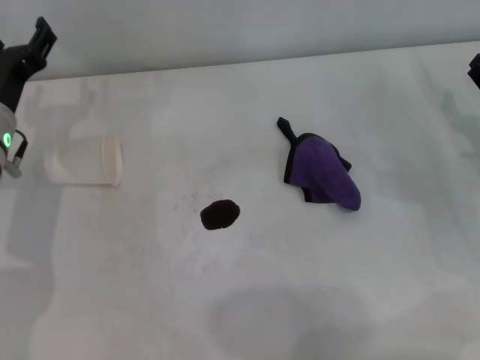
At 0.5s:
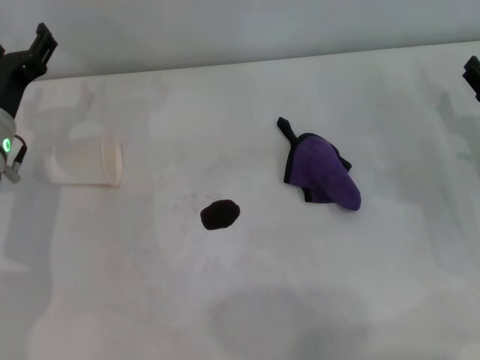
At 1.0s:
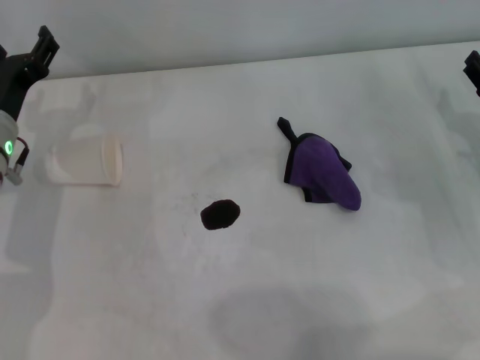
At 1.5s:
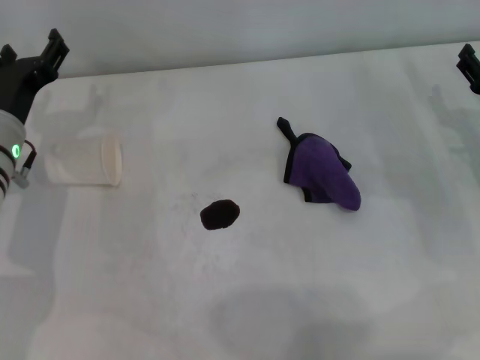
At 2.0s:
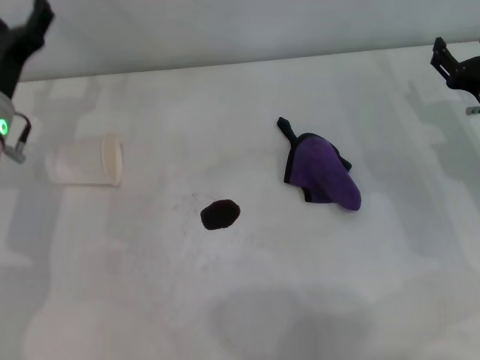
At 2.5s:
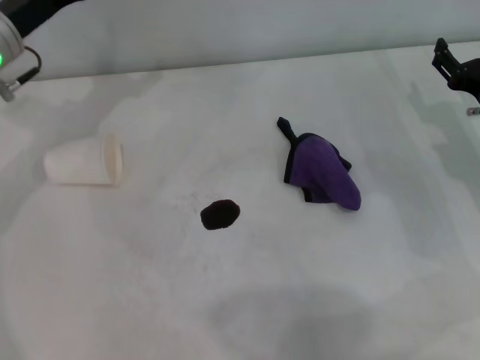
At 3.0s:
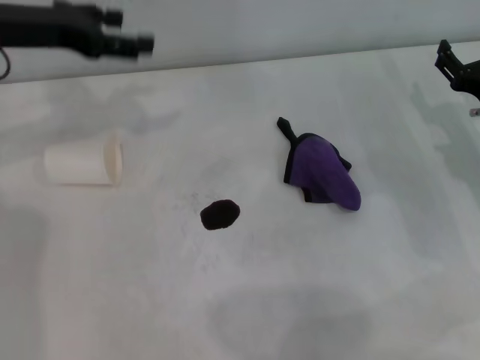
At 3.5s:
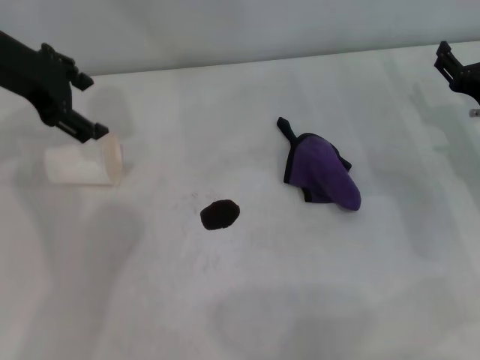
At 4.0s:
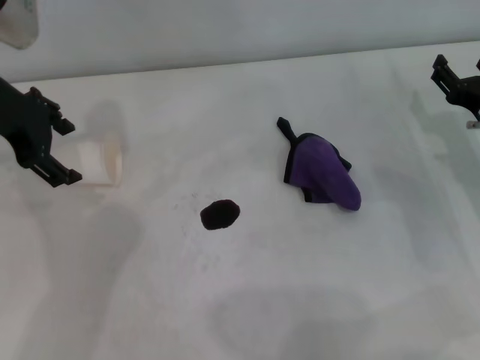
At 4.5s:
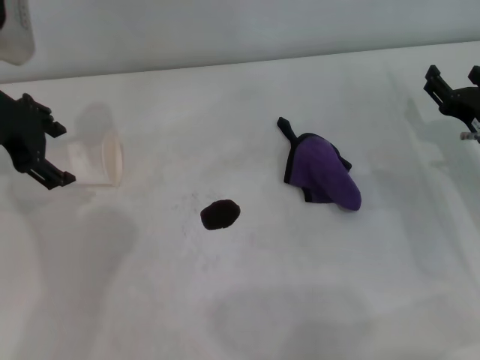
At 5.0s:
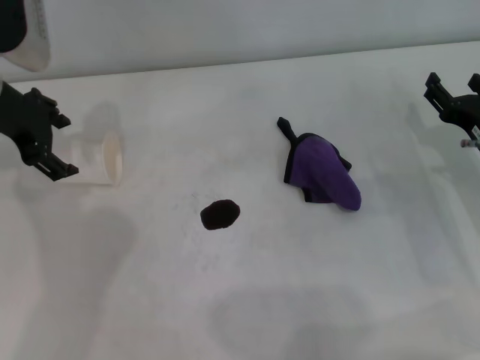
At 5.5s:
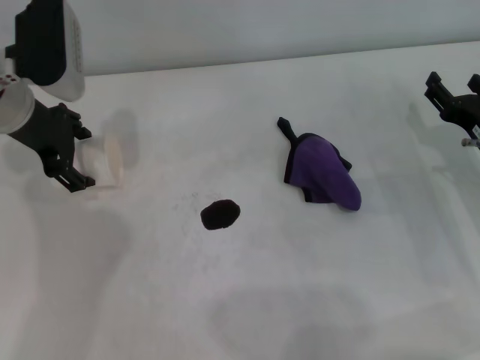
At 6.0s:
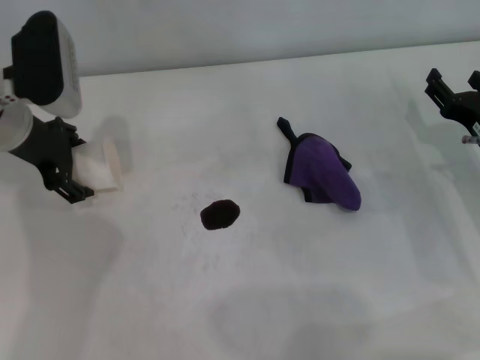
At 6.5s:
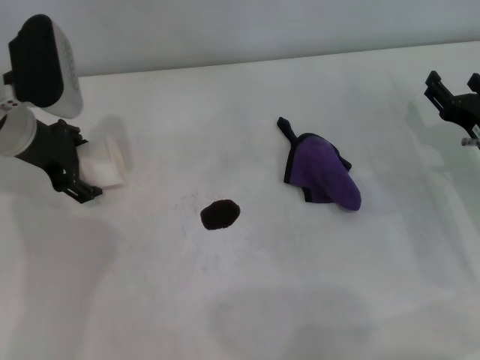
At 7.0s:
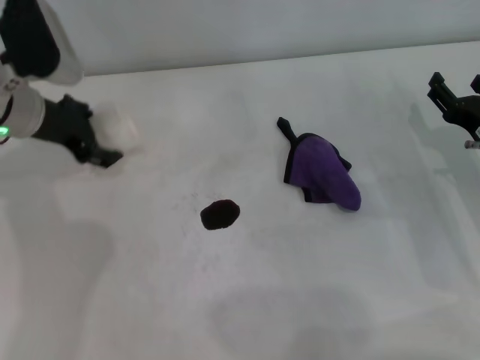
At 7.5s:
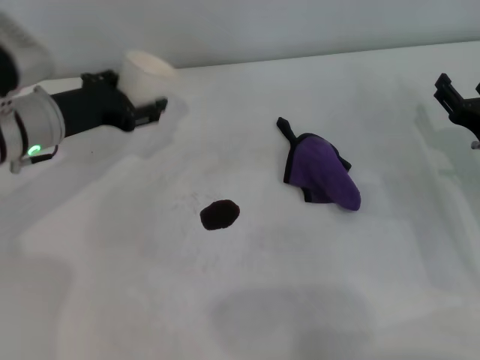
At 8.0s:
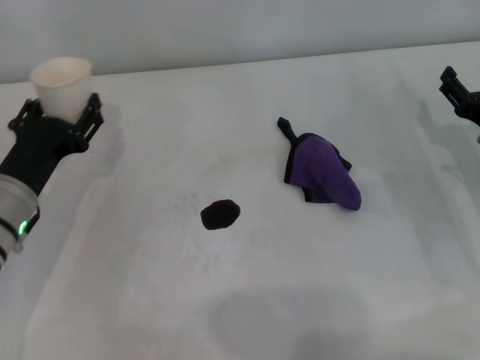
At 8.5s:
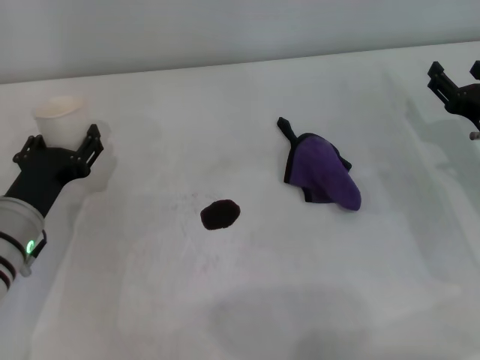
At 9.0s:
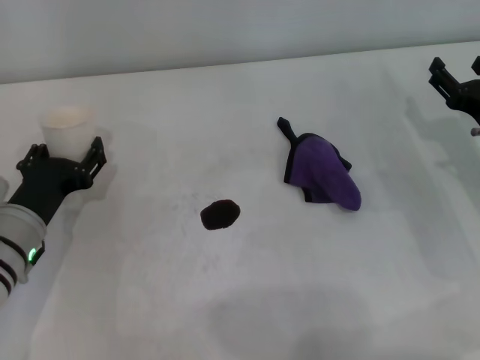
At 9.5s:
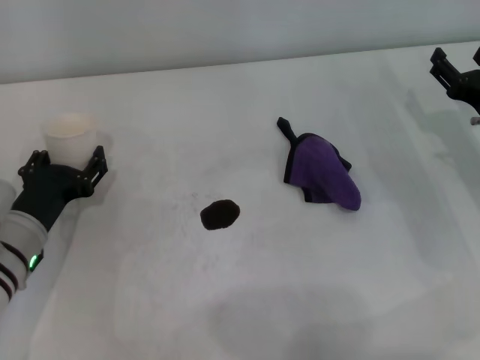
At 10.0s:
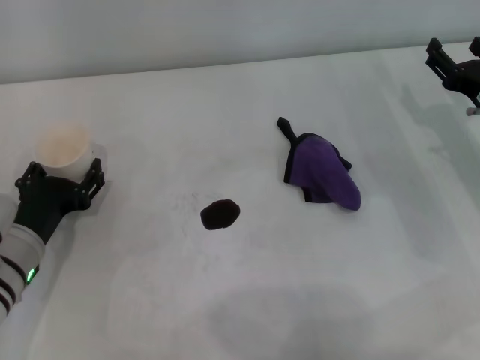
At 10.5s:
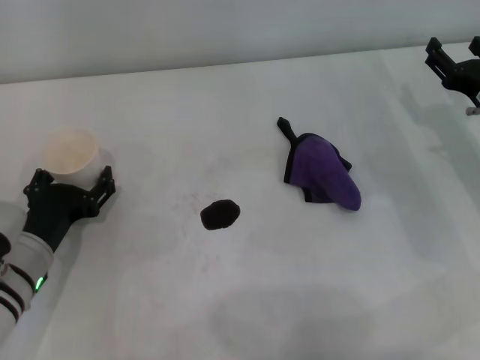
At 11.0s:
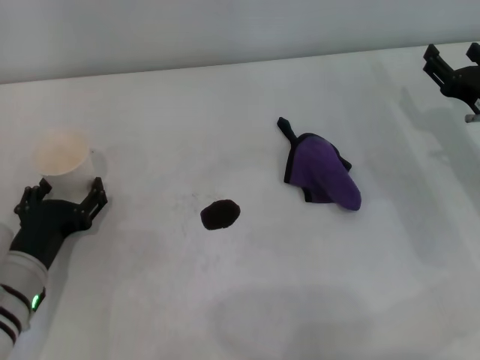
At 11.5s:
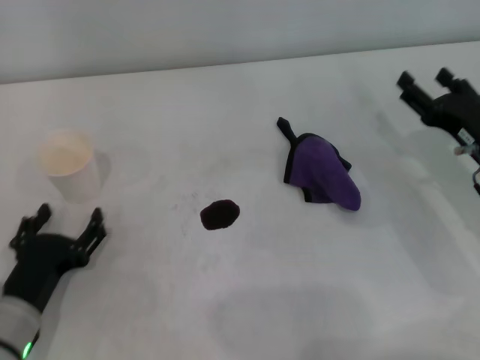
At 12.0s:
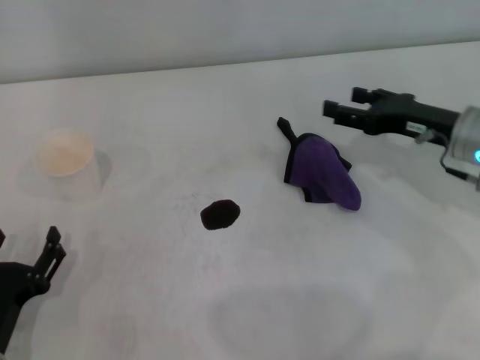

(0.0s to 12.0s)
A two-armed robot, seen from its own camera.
Step, 0.0s - 6.5s: Grasp the paper cup with the left gripper.
Step, 7.0s - 10.5s: Stand the paper cup upright with the left gripper.
2.0s - 4.0s: The left gripper travels upward by roughly 15 cm.
4.0s - 6.0s: The left gripper travels downward by approximately 10 cm.
6.0s - 8.0s: The left gripper is displaced backward and downward by about 15 cm, and closes up.
8.0s - 10.0s: The grippers stay close to where they were, moving slightly.
10.0s - 12.0s: The left gripper travels backward by some 10 cm, and opens; the right gripper ends up some 5 cm from where it was.

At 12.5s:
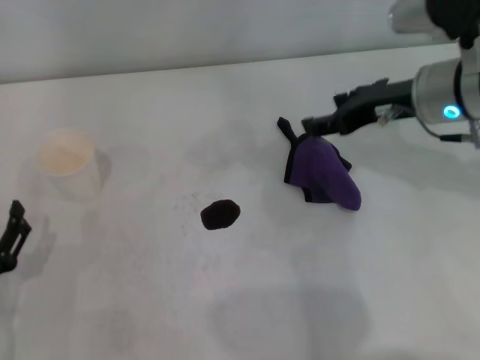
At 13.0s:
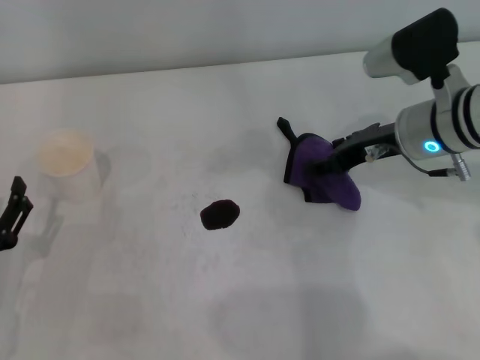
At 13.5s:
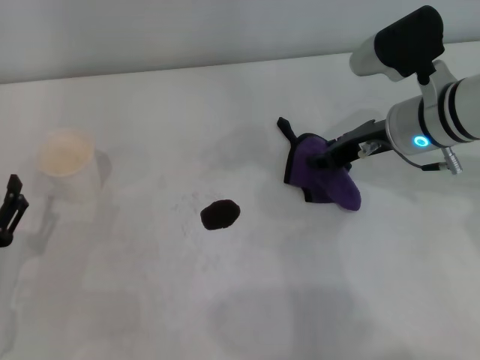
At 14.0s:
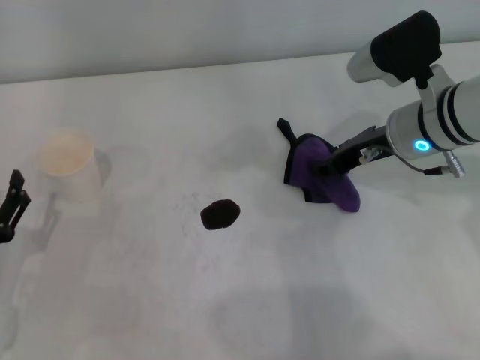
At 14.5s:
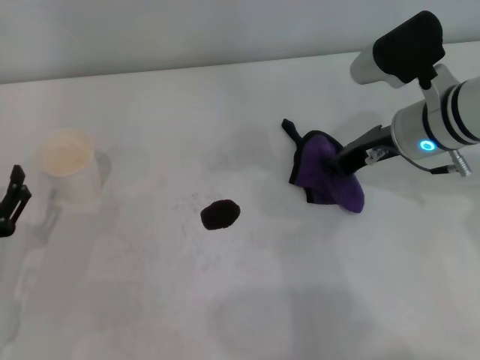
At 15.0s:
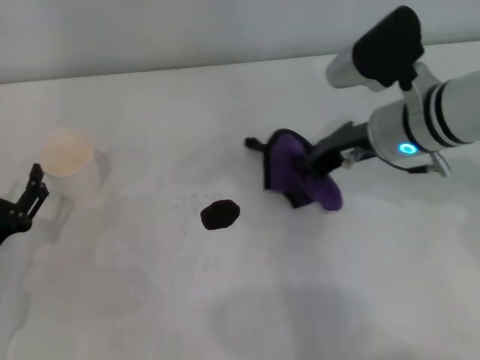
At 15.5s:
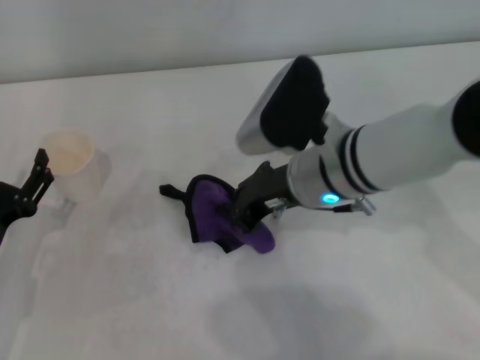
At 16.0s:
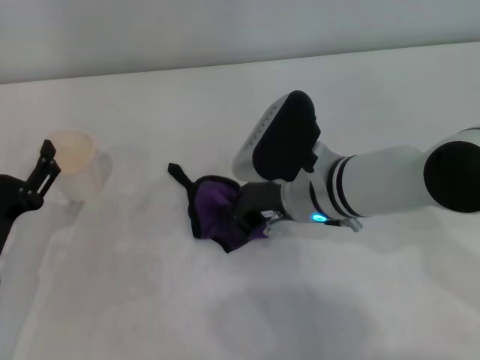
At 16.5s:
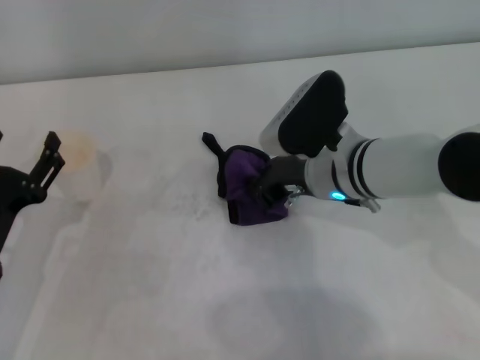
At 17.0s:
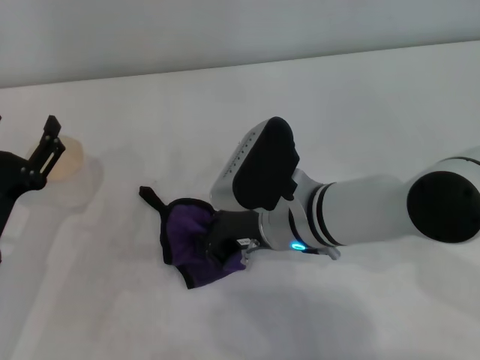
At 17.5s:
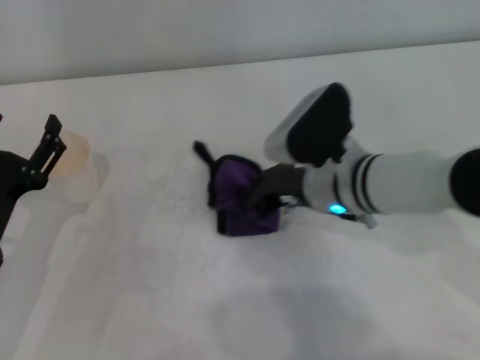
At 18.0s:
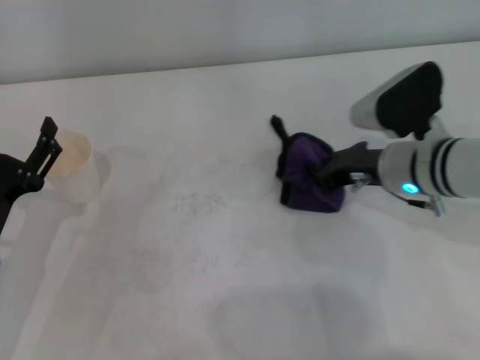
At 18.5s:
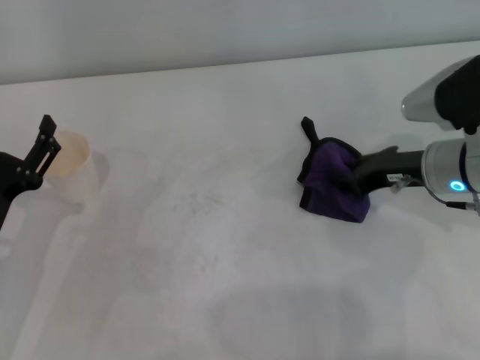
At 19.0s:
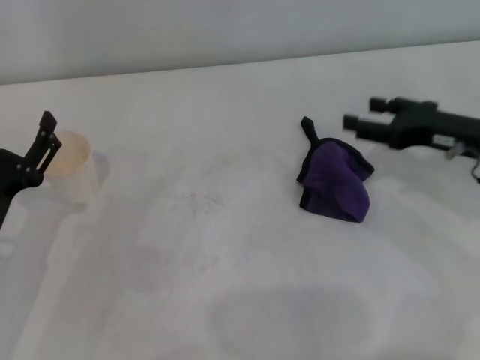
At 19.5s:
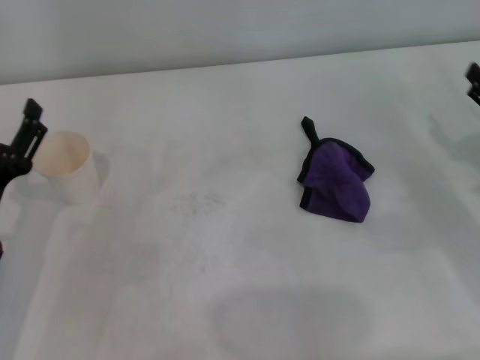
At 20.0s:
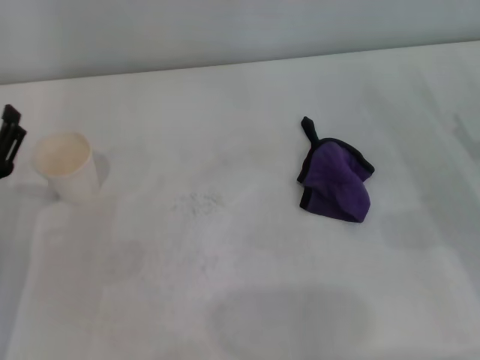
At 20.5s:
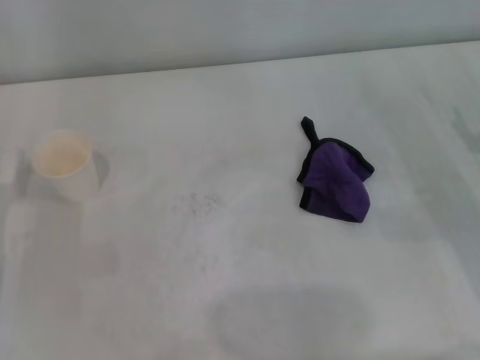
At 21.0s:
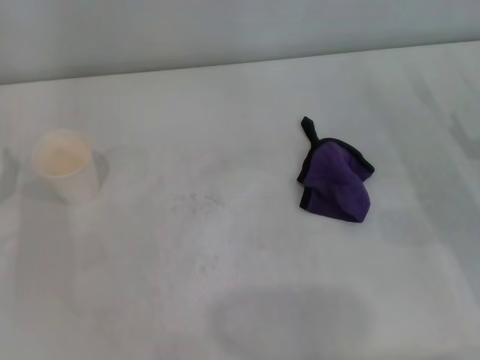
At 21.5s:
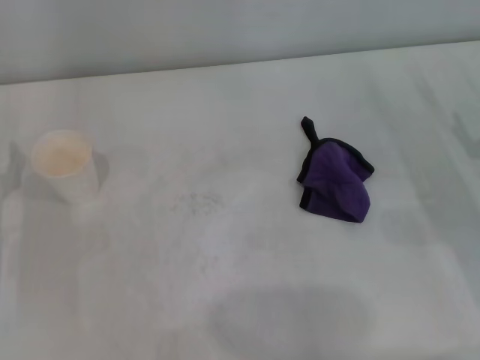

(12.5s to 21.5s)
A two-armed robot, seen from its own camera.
Step, 12.5s - 14.5s: Grasp the rag with the right gripper.
Step, 15.0s - 17.5s: Wipe the stains off the table with the right gripper.
Step, 18.0s - 18.5s: Place the rag on the table with the right gripper.
12.5s - 14.5s: The right gripper closes its fingers.
14.5s - 17.0s: The right gripper travels to the left and backward by approximately 15 cm.
17.0s - 19.5s: The right gripper moves to the right, roughly 30 cm, and opens up.

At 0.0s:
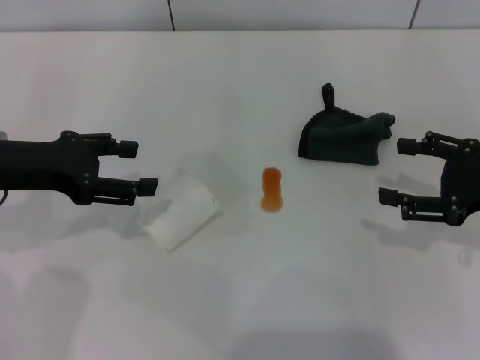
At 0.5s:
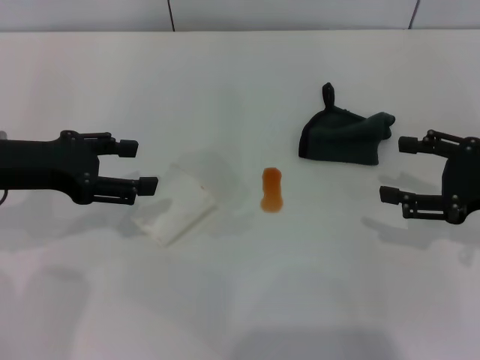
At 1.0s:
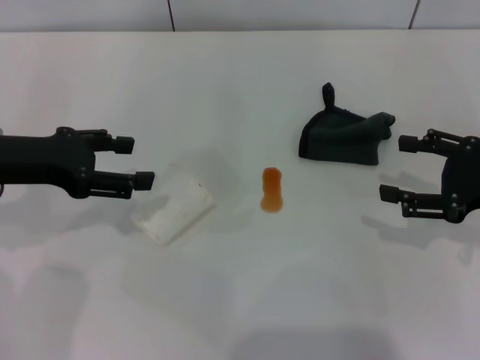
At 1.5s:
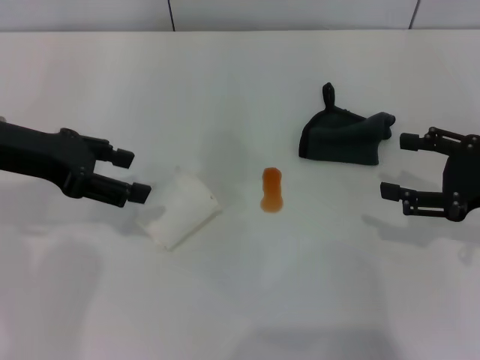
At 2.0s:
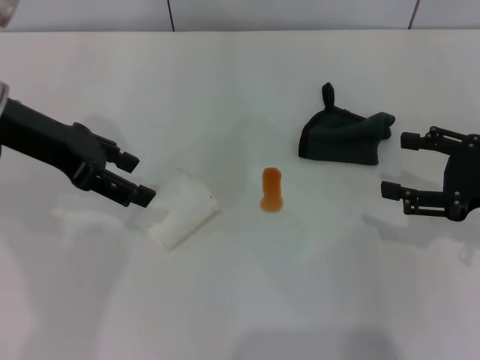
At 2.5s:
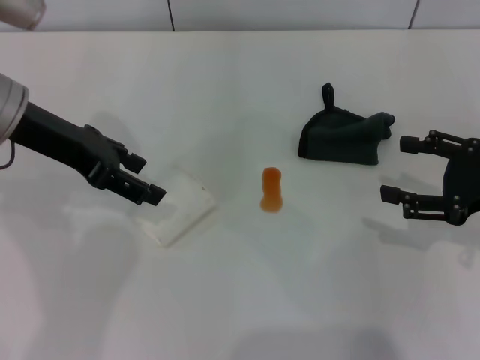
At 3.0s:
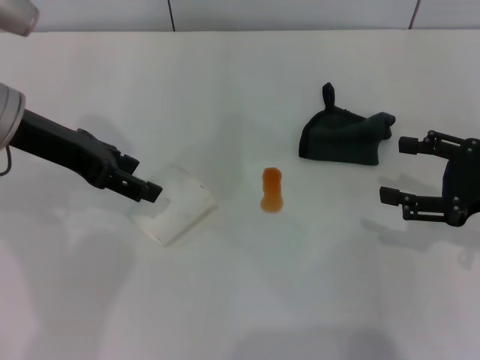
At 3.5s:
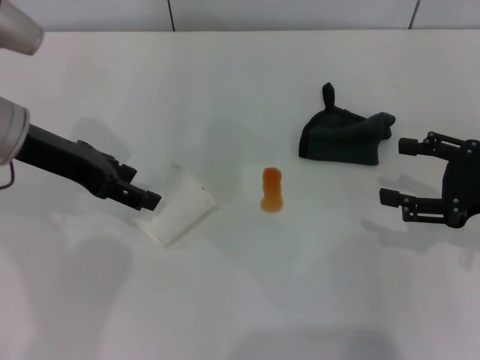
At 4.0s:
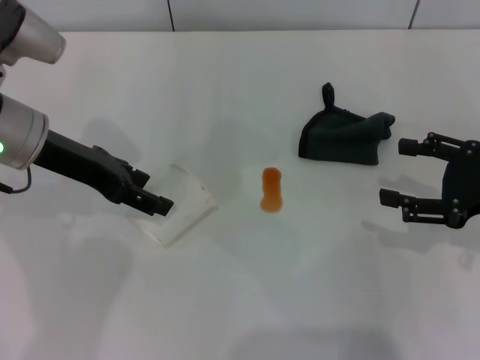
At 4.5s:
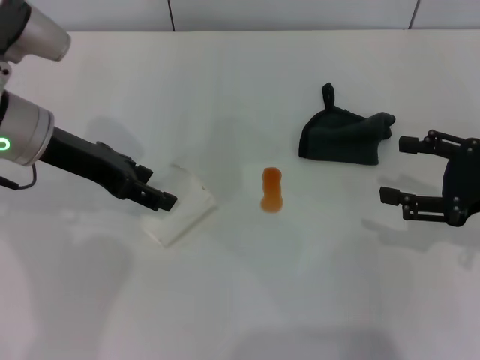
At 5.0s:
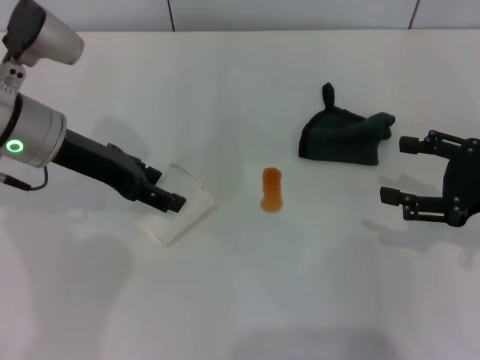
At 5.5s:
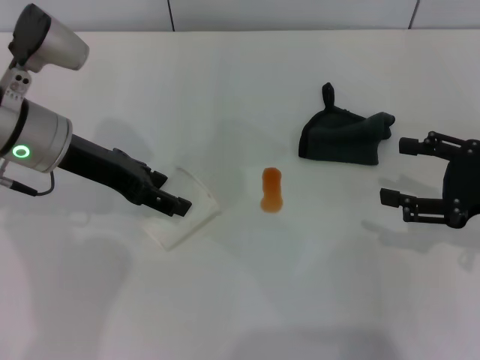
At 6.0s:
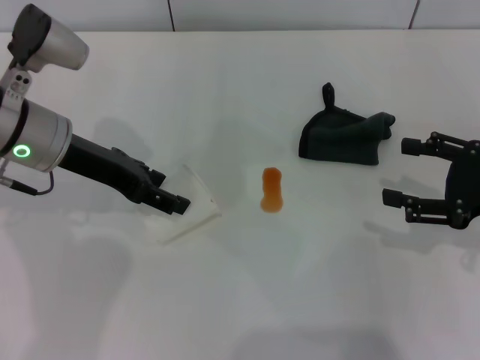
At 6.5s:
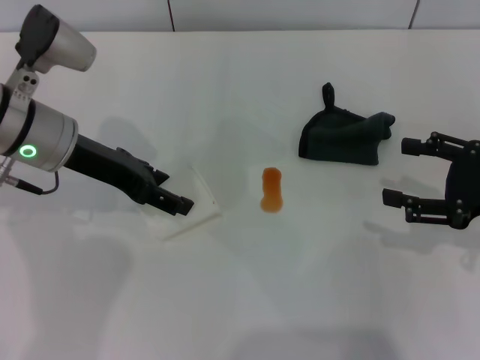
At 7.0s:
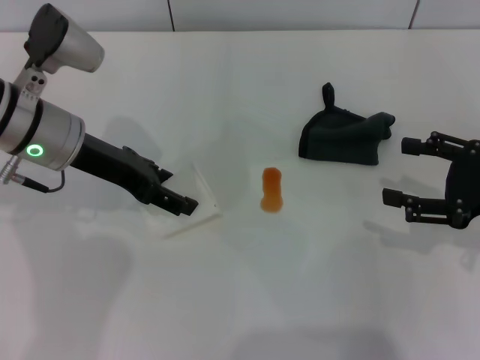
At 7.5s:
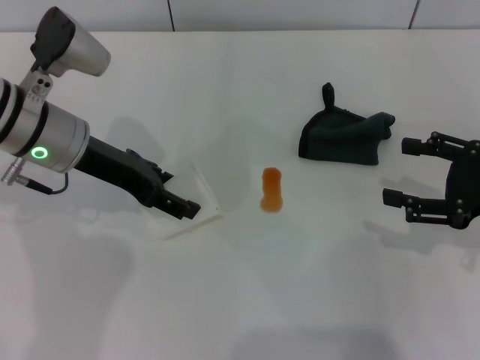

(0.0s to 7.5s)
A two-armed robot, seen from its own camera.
0.0s - 2.0s: The left gripper goes approximately 5 cm upward.
2.0s - 4.0s: The grippers make only small movements.
4.0s - 7.5s: The grippers make only small movements.
